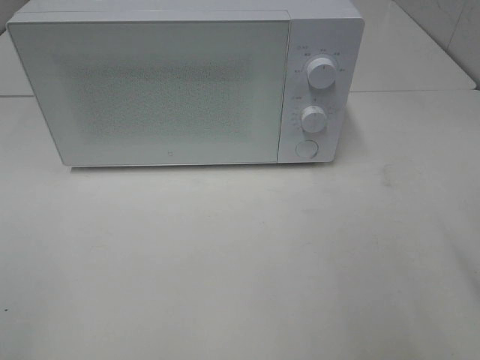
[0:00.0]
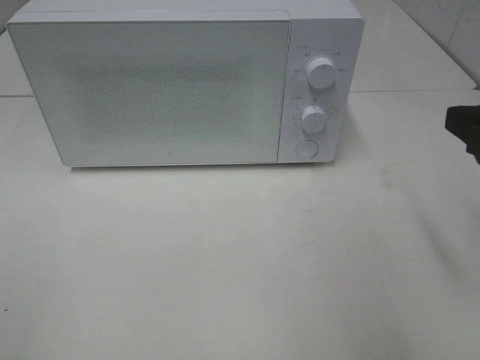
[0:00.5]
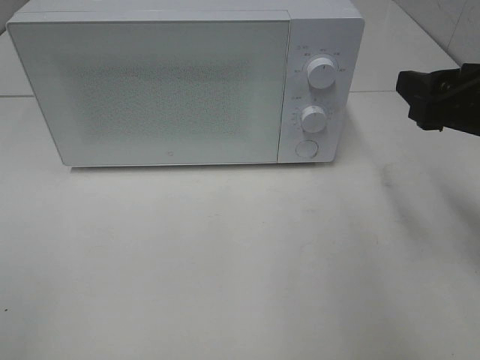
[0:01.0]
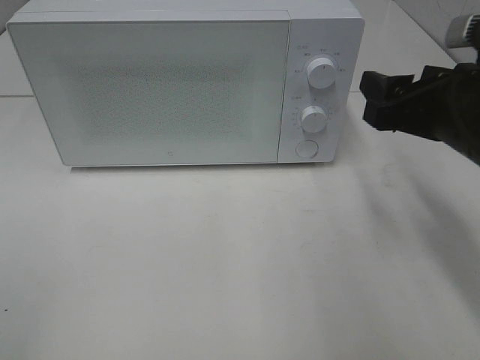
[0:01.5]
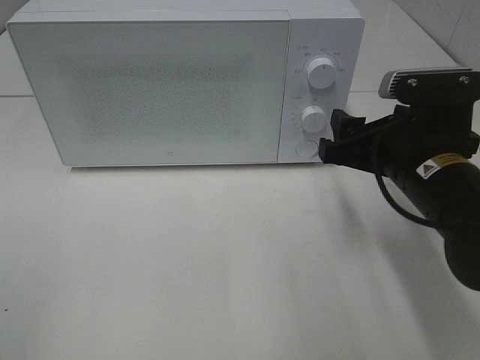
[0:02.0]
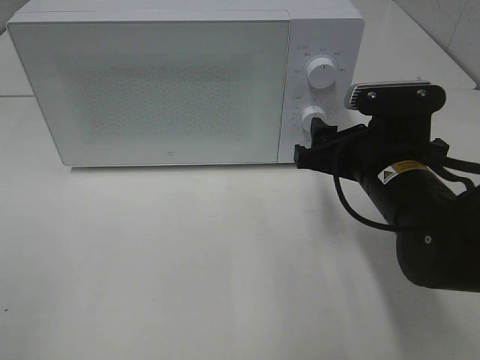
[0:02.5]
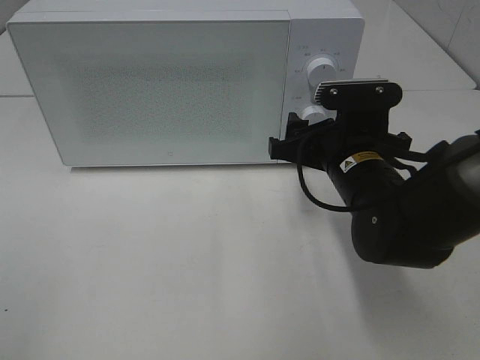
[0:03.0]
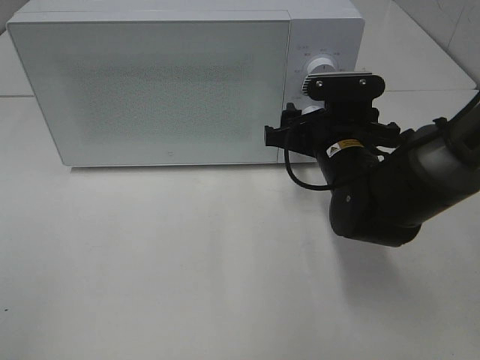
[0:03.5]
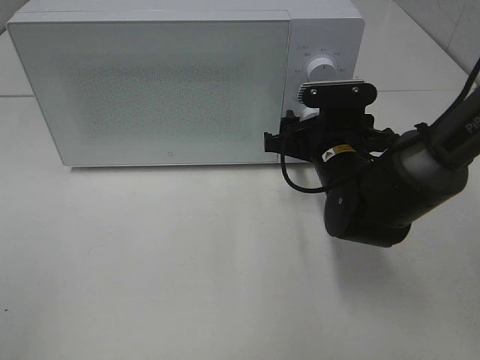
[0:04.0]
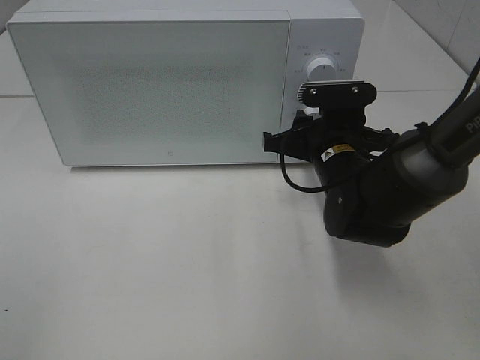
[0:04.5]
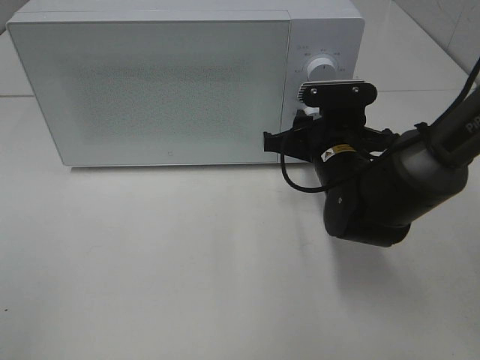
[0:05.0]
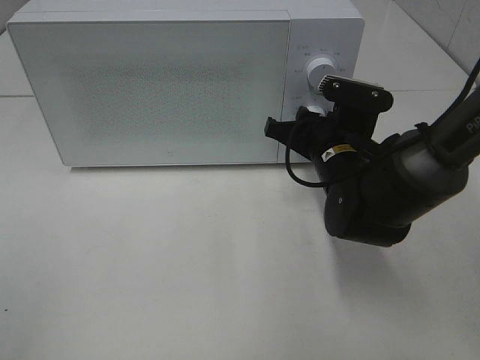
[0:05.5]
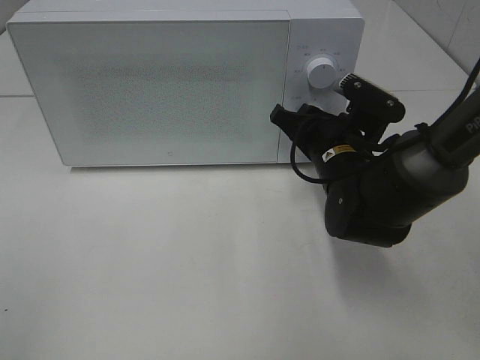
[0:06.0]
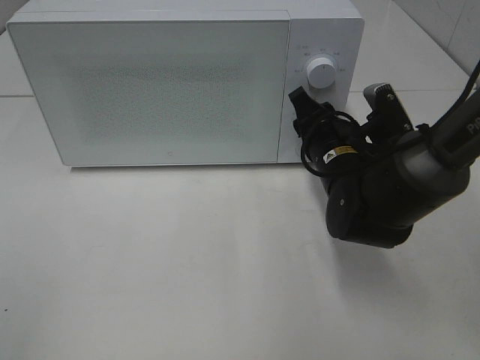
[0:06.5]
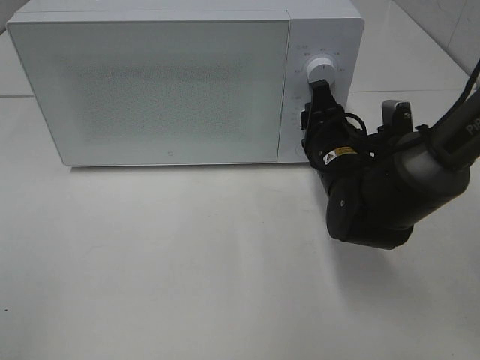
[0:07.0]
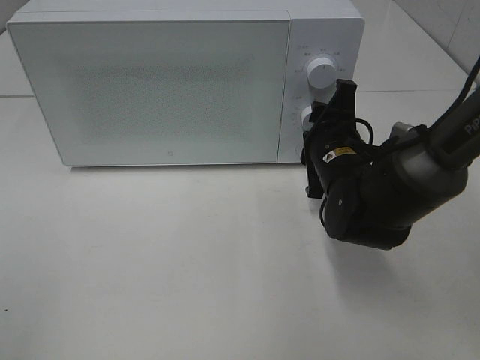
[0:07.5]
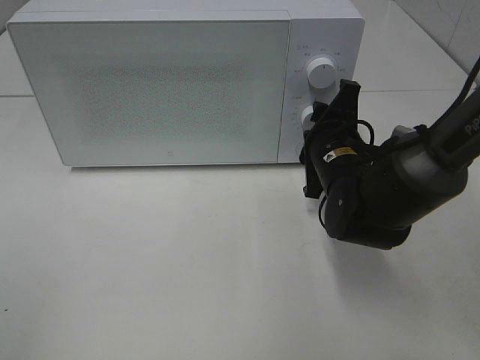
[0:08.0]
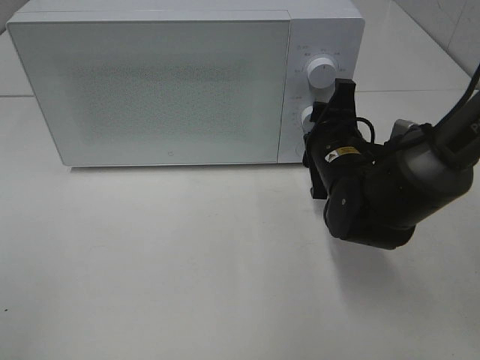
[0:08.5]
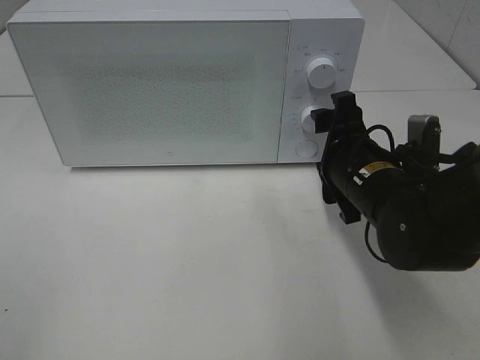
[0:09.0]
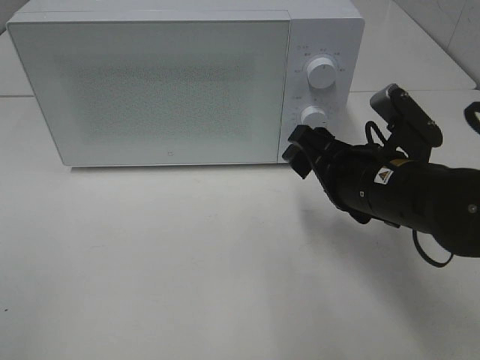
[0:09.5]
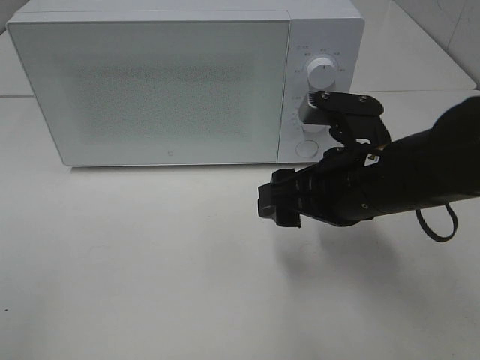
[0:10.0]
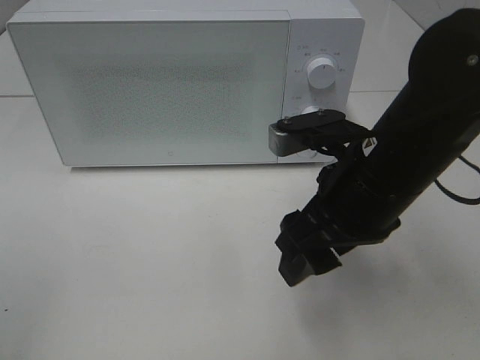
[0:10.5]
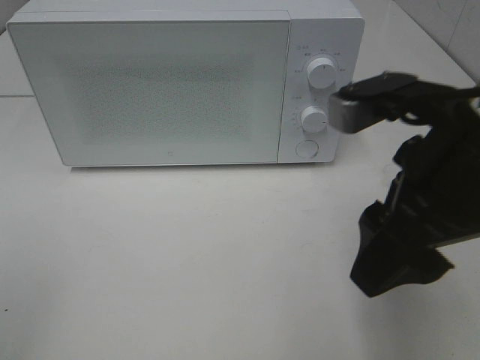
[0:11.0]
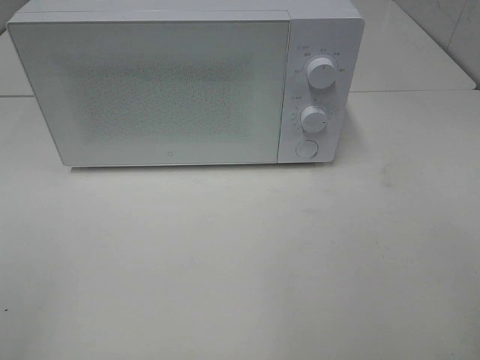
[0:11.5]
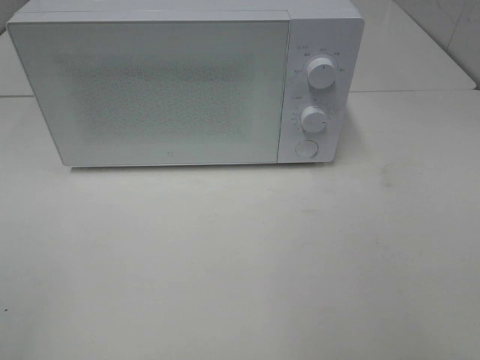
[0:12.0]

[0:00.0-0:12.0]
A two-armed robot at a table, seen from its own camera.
Task of the whole recording: Heat the burger.
Step, 0:00.0 to 0:08.5: Right hand: twist timer button.
0:00.0 to 0:02.0: The right gripper travels forward, downward and to the left by about 20 cm.
0:02.0 to 0:04.0: The right gripper goes about 10 cm forward, downward and to the left.
0:04.0 to 0:06.0: The right gripper closes.
0:08.0 to 0:10.0: The right gripper is displaced backward and upward by about 10 cm, and opens its fingers.
0:10.0 to 0:12.0: The right gripper goes about 25 cm backward, to the right and upward.

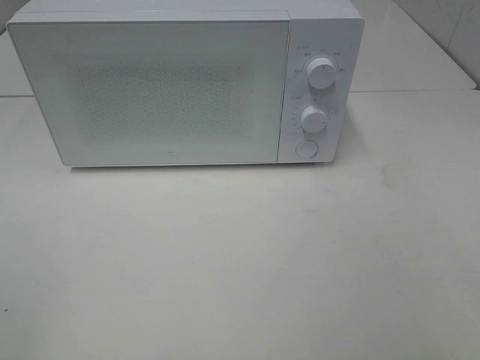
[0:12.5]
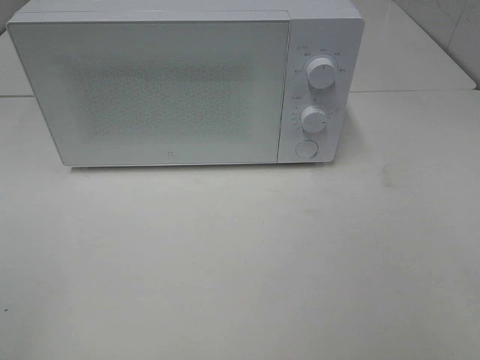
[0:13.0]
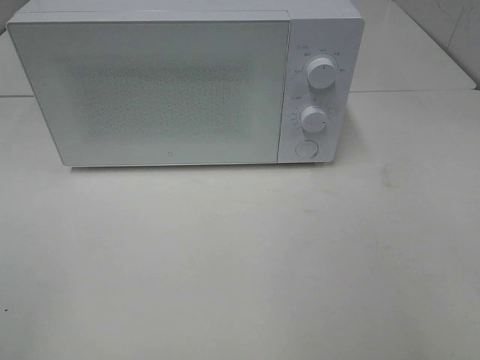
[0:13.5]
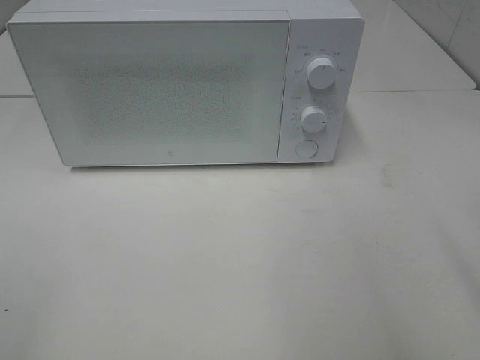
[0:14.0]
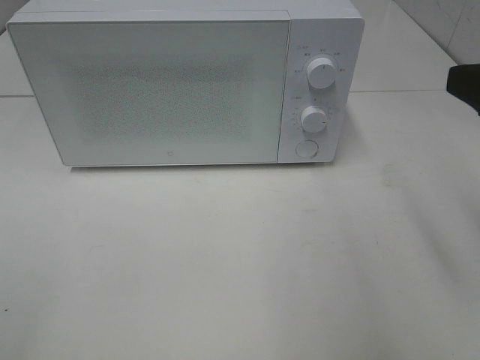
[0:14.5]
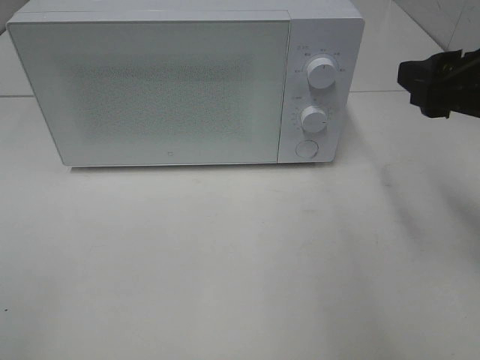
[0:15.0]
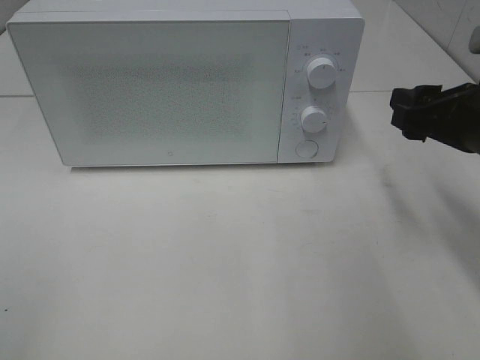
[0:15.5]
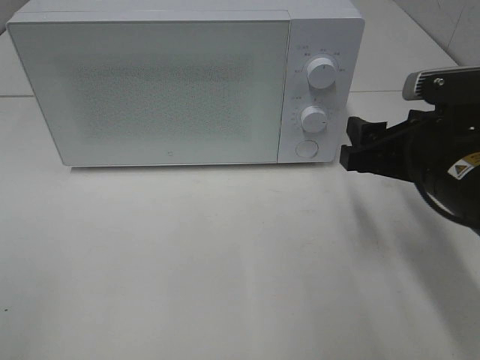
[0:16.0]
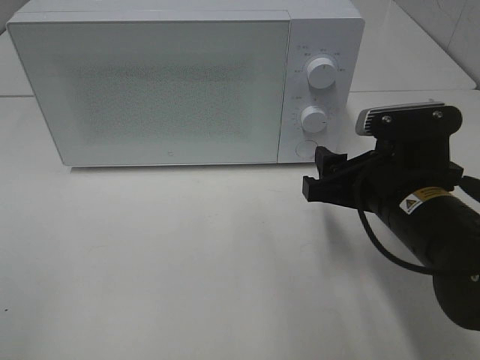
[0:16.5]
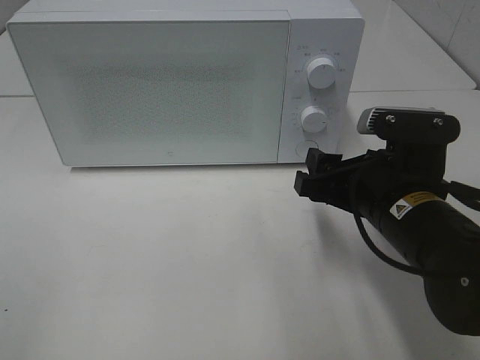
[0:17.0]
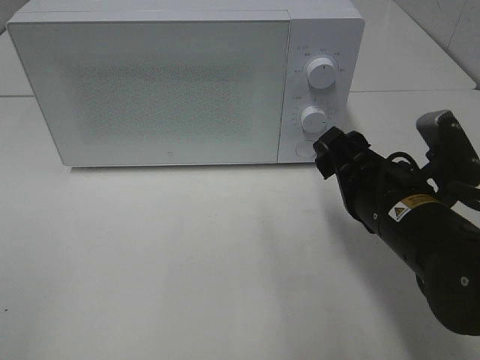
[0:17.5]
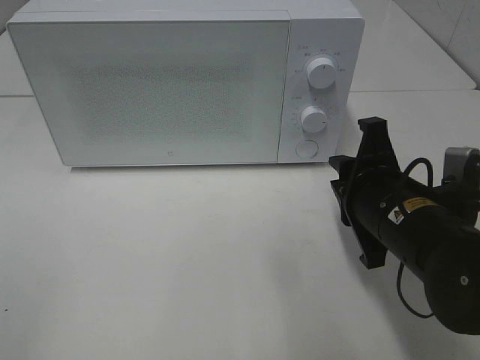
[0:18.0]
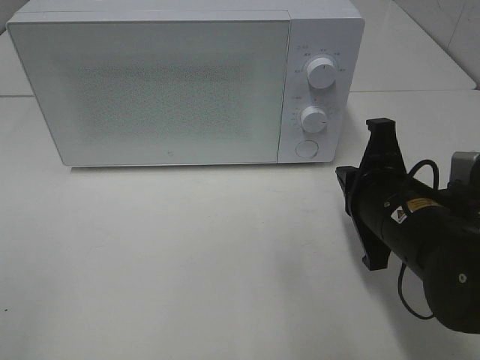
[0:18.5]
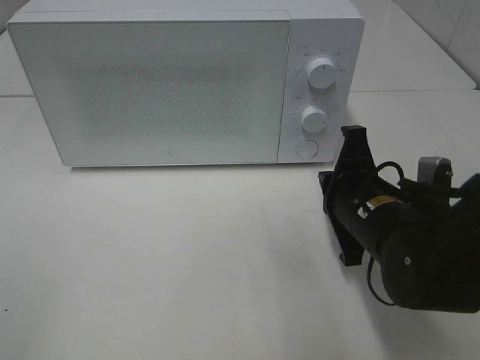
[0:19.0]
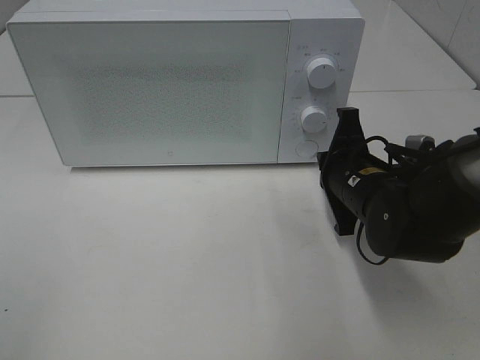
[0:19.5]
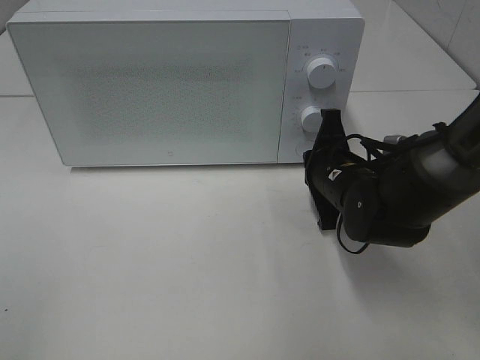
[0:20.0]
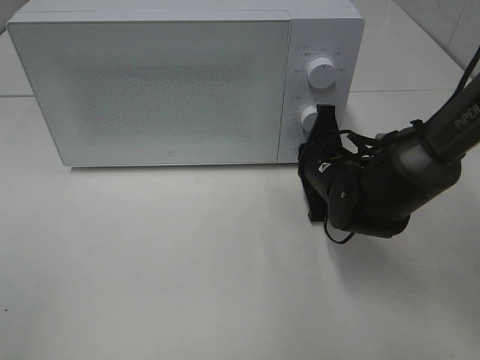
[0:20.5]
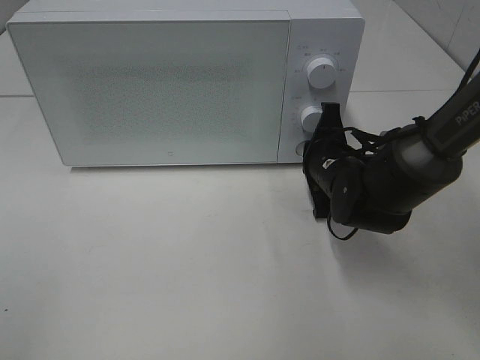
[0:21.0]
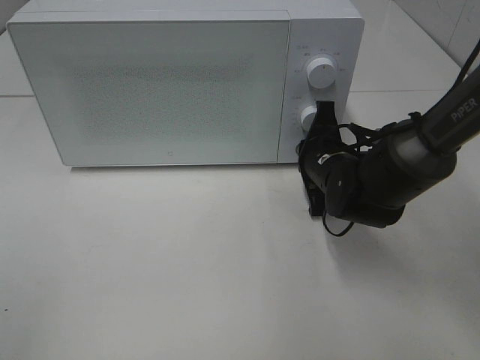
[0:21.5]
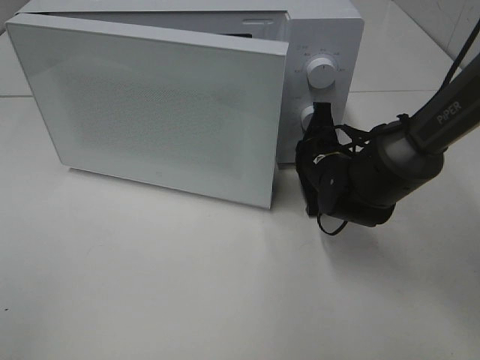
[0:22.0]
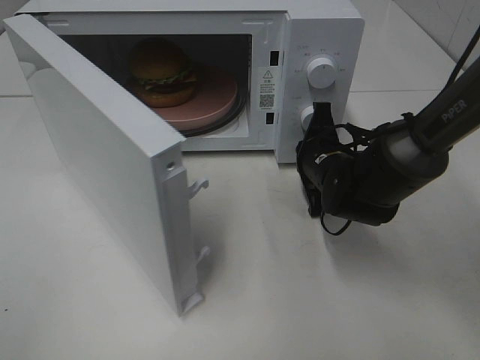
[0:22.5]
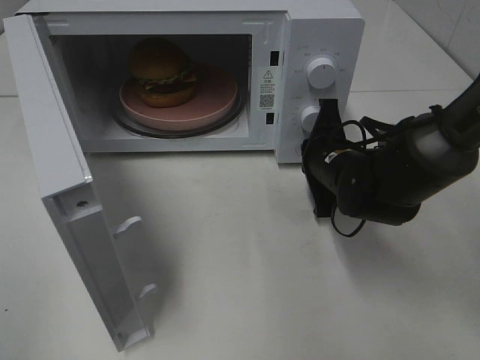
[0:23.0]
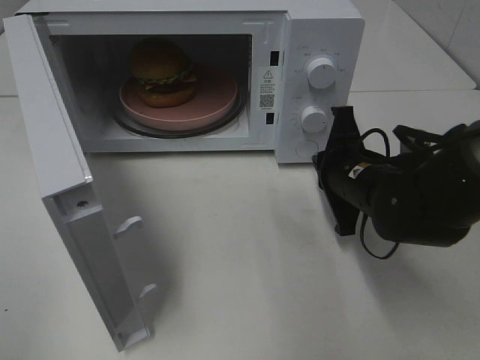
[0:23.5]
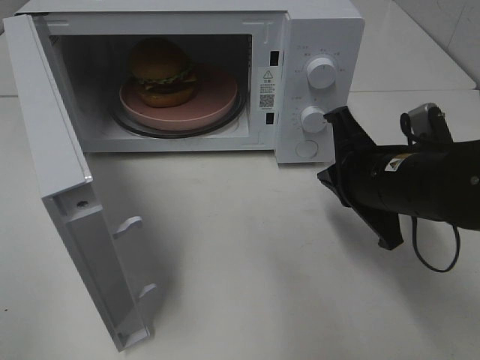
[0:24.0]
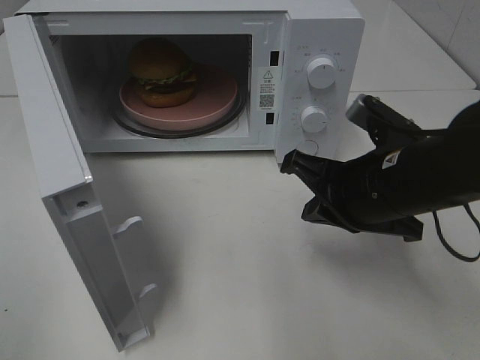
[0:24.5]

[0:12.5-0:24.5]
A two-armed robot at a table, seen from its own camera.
Task of the whole recording: Heat the burger.
Step, 0:12.5 to 0:23.5: Right hand: press the switch.
0:12.5 to 0:14.5: The right gripper moves forward, about 15 cm.
0:14.5 to 0:16.5: The right gripper moves downward and to the left, roughly 15 cm.
0:16.5 to 0:18.5: The right gripper closes its fingers.
0:18.5 to 0:20.5: The right gripper moves forward and downward, roughly 15 cm.
0:22.5 to 0:24.5: The right gripper heads backward and upward, covering some 15 cm.

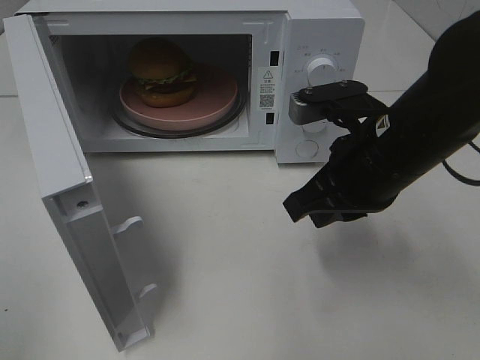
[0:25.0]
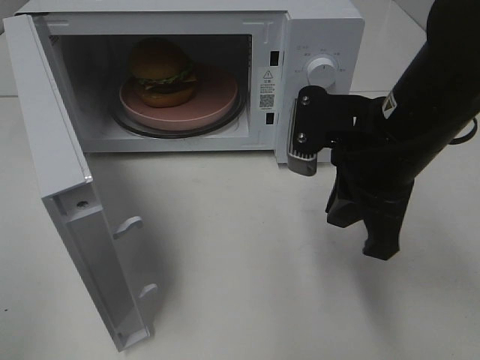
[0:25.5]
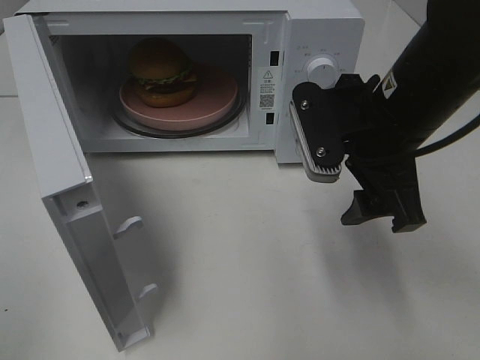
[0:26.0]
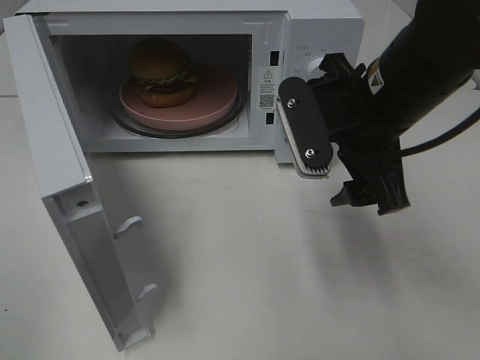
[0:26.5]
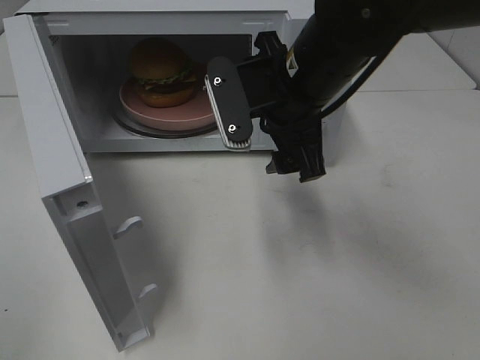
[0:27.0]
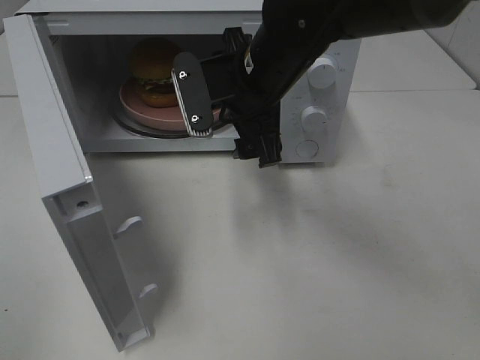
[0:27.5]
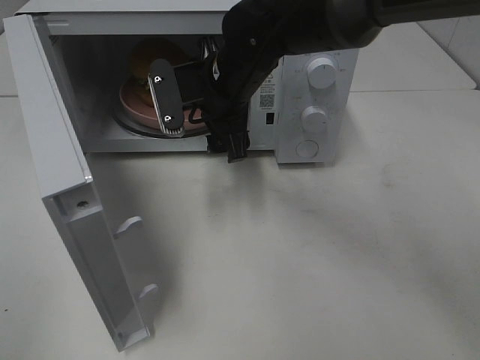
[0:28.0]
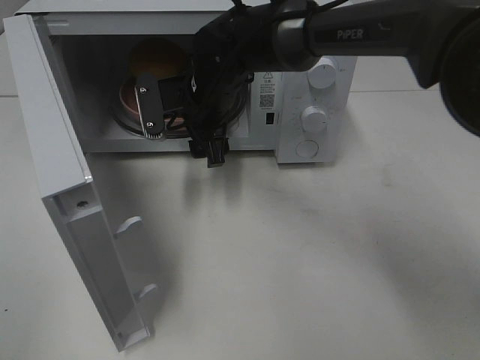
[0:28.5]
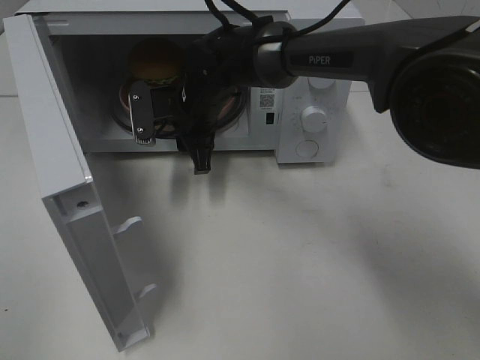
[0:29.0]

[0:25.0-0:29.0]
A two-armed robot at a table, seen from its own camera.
Task of the whole recording: Heat the burger.
0:25.0 to 0:27.0: The right gripper shifts roughly 10 cm to the left and forward, and opens.
0:27.0 to 0:29.0: The right gripper is displaced forward, to the left and downward by about 20 cm, and closes up.
